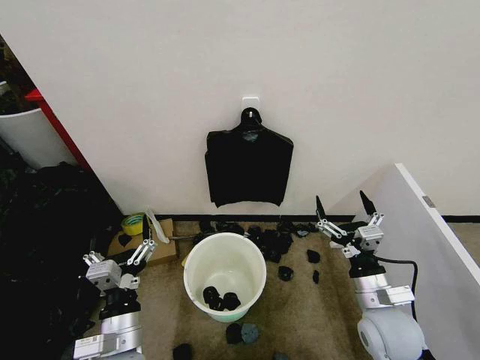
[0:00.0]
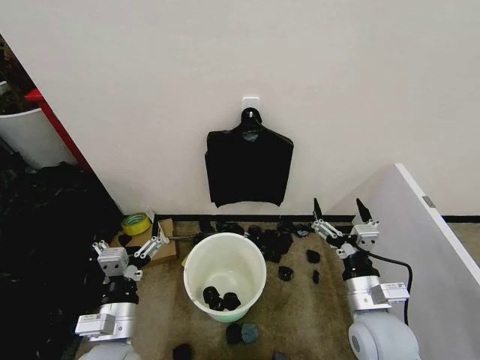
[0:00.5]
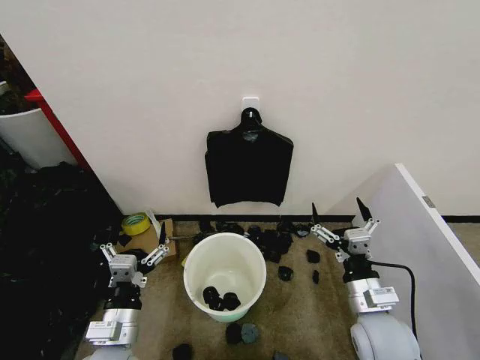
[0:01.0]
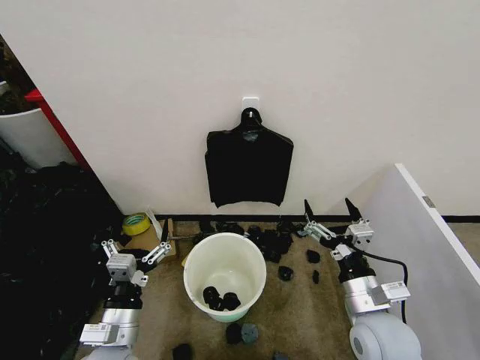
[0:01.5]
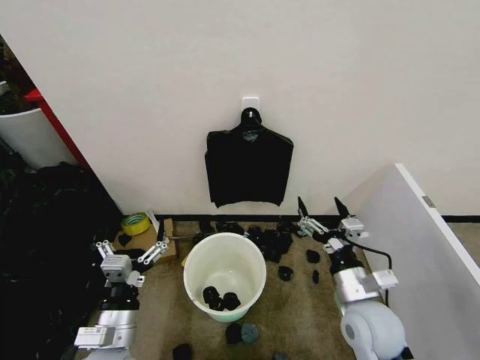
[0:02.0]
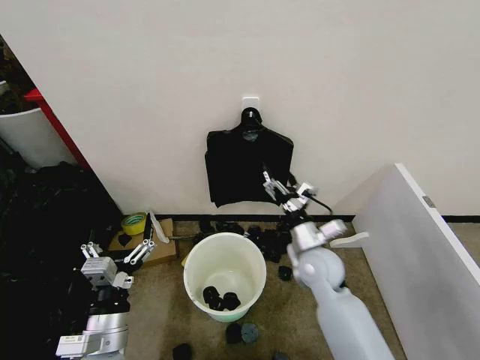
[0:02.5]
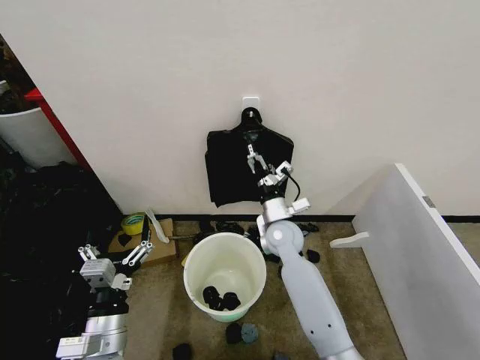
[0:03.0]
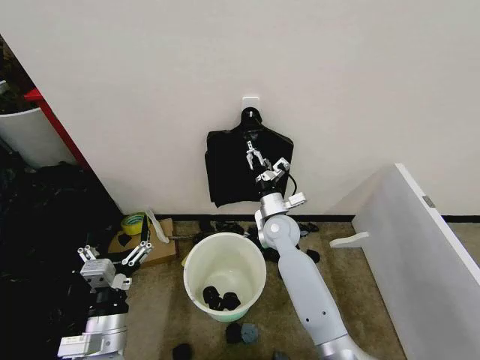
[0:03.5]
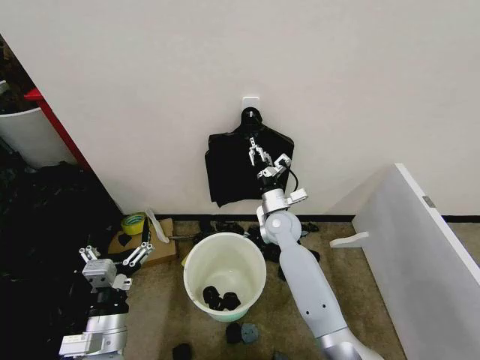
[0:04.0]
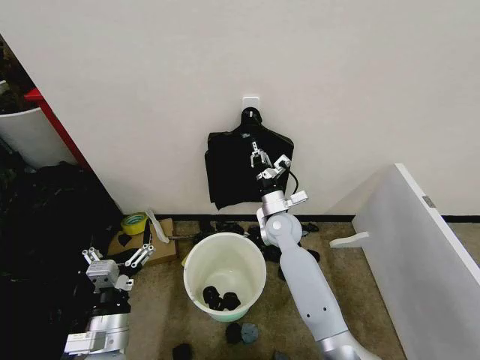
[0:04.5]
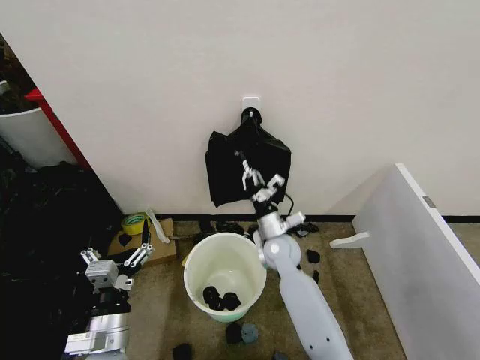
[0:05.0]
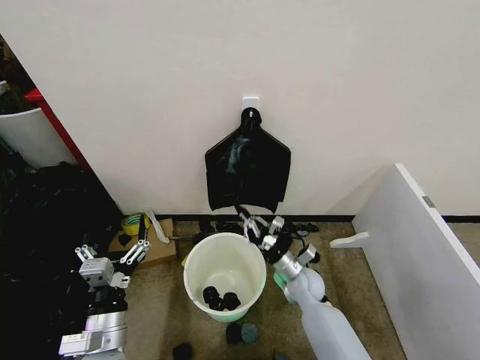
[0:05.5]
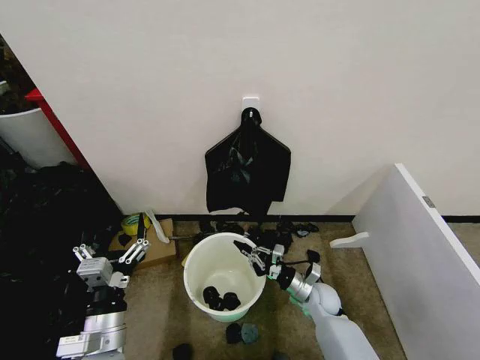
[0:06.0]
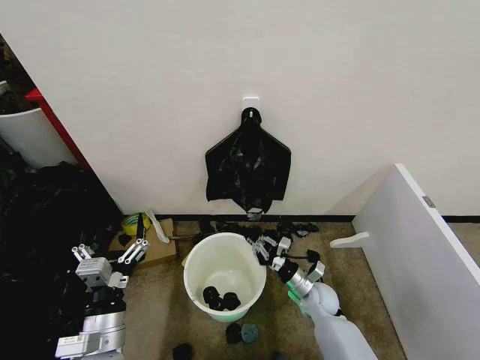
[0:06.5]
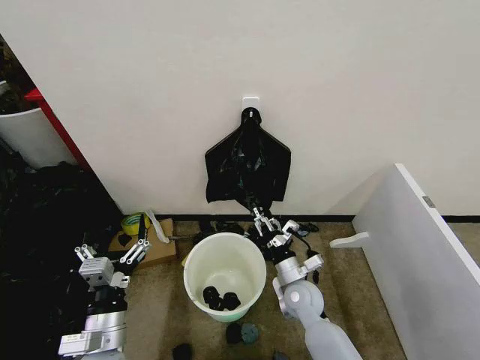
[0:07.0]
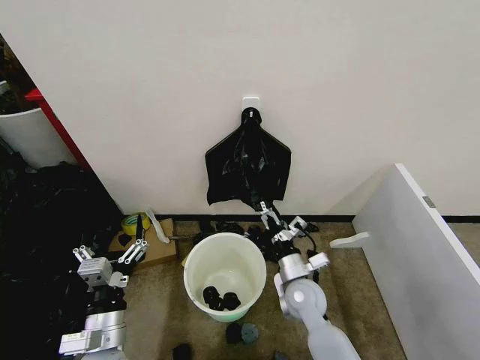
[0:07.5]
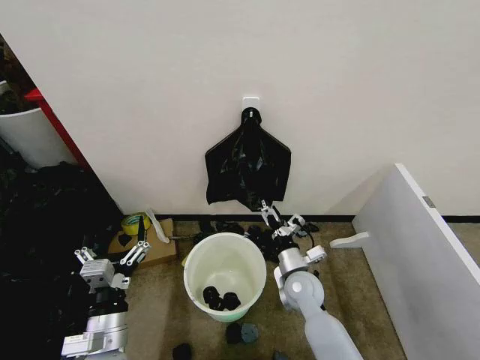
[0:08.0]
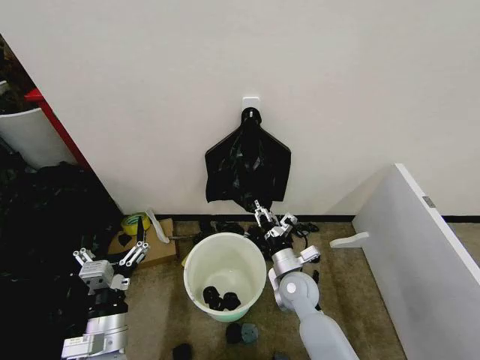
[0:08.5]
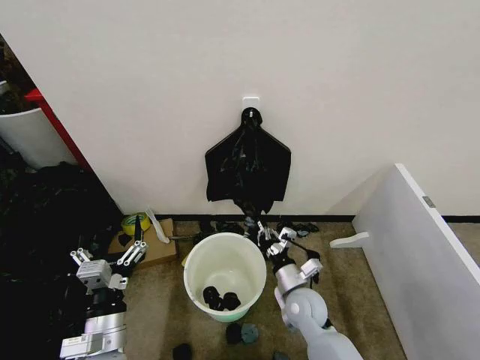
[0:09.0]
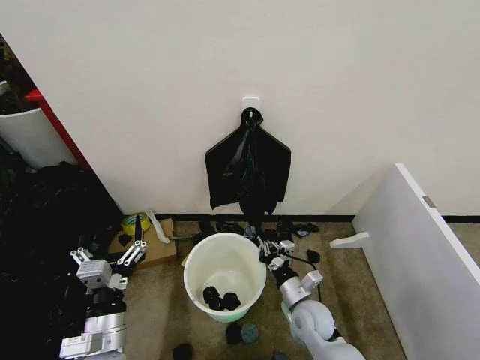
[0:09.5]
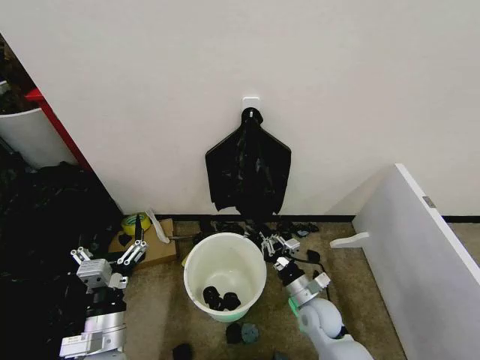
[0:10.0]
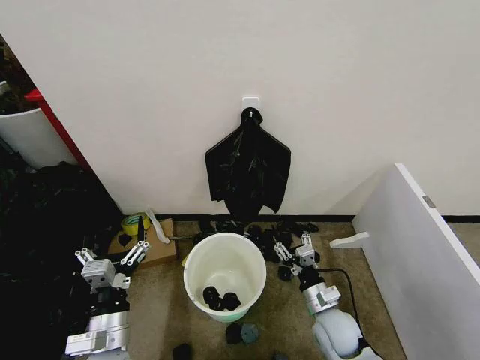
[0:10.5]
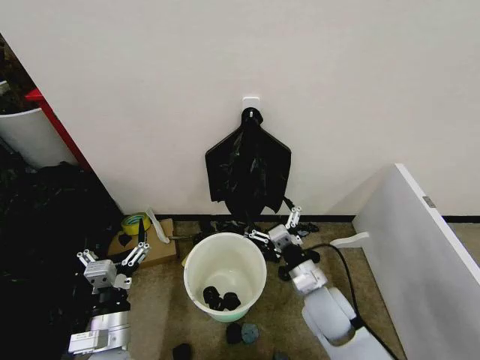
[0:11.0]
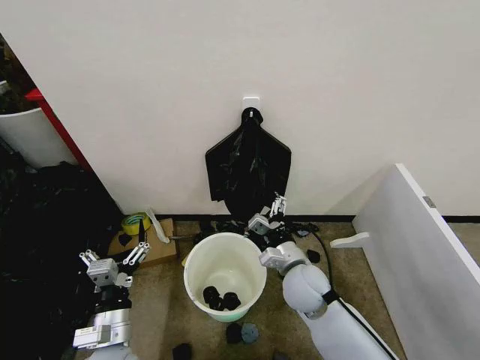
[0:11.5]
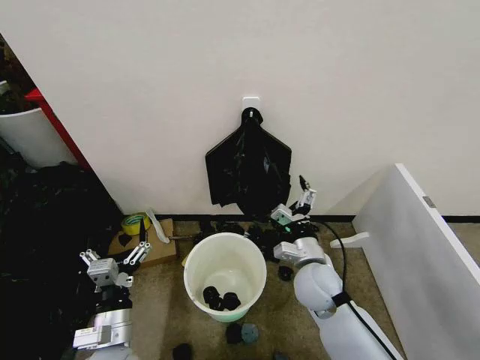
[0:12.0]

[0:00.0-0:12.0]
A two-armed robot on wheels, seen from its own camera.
Task of the whole recording: Place the garbage bag over the trash bin.
0:02.0 to 0:04.0: The right gripper goes about 30 cm forward and to the left, and closes its fingers.
0:04.0 to 0:06.0: The right gripper moves downward, backward and to the right, roughly 25 cm, and closes up.
0:06.0 to 0:08.0: The right gripper heads upward and to the left, covering about 10 cm, and opens up.
0:08.0 to 0:10.0: The right gripper changes place by roughly 10 cm, and closes up.
0:10.0 to 0:12.0: The right gripper shifts roughly 15 cm upward, and opens up.

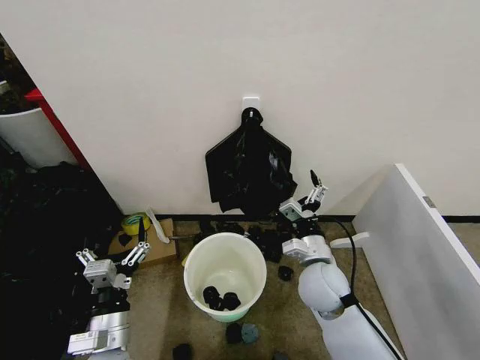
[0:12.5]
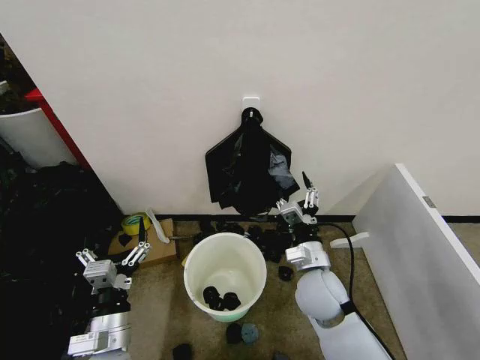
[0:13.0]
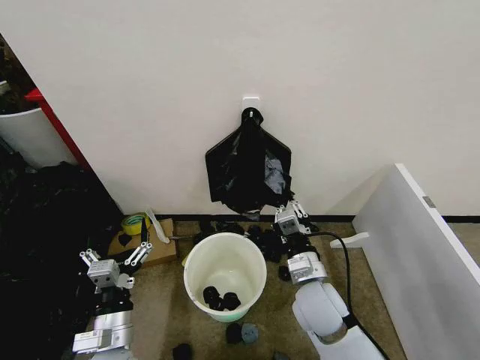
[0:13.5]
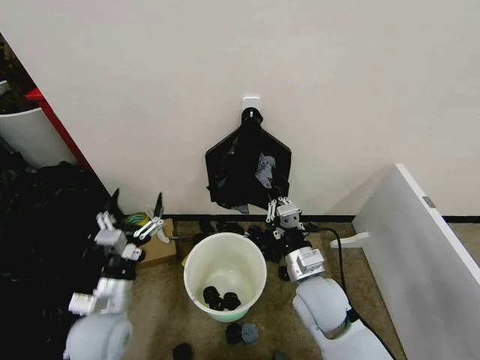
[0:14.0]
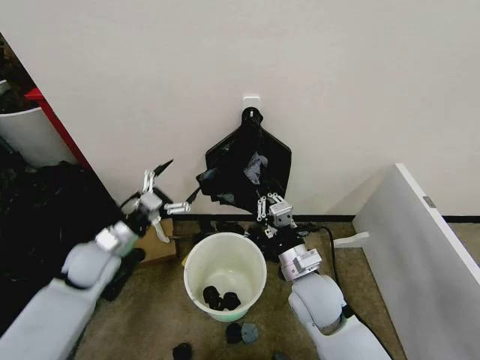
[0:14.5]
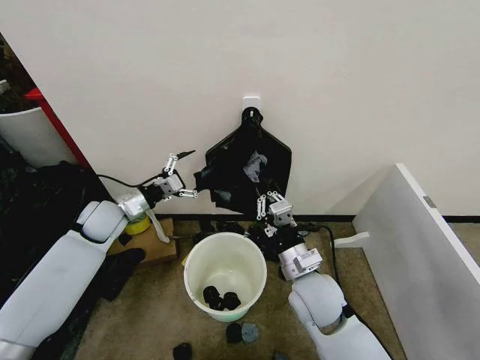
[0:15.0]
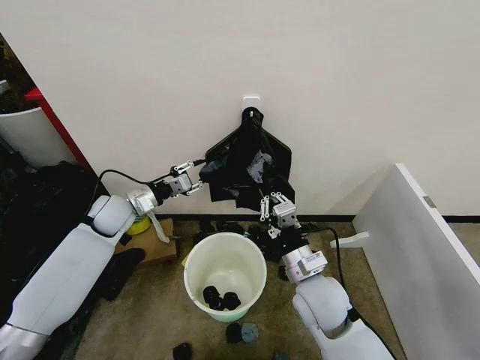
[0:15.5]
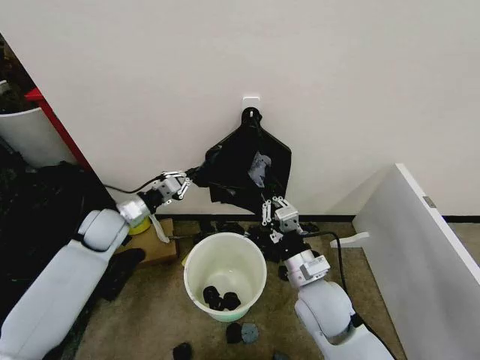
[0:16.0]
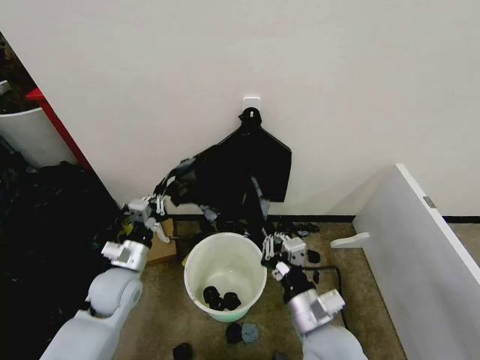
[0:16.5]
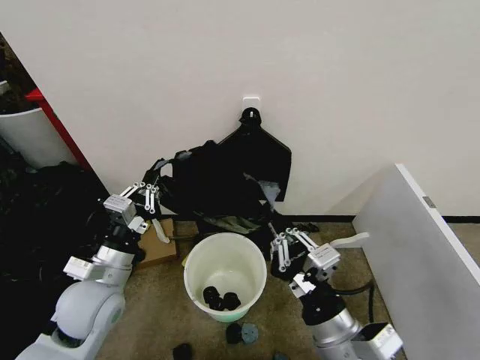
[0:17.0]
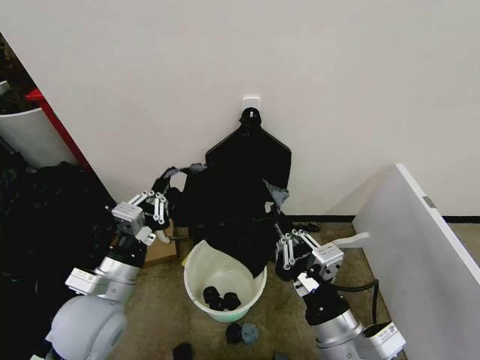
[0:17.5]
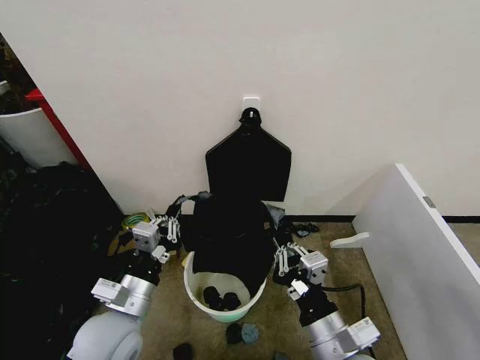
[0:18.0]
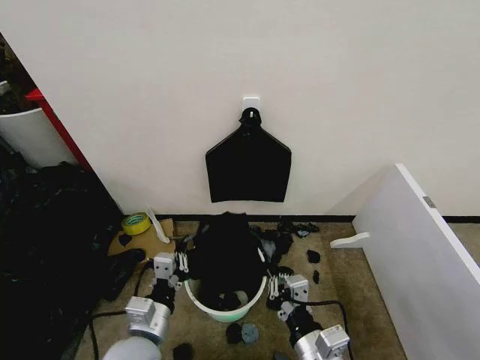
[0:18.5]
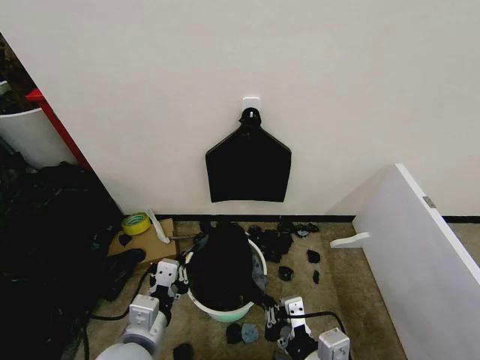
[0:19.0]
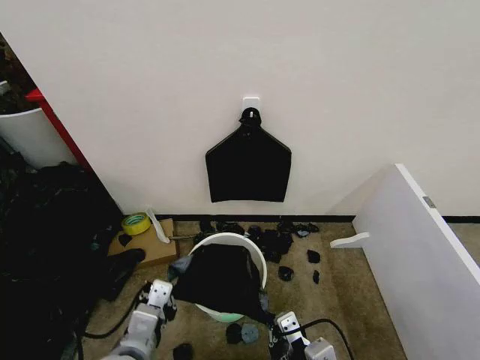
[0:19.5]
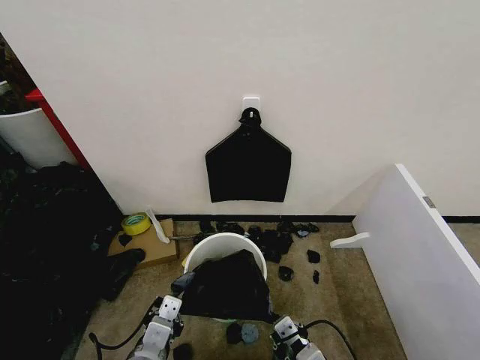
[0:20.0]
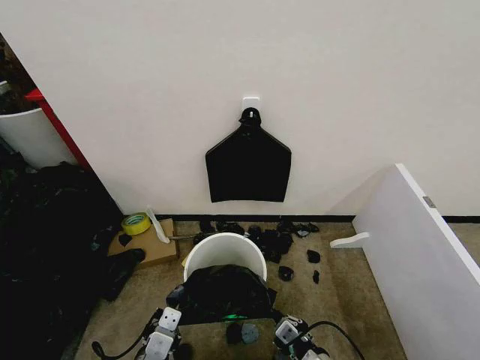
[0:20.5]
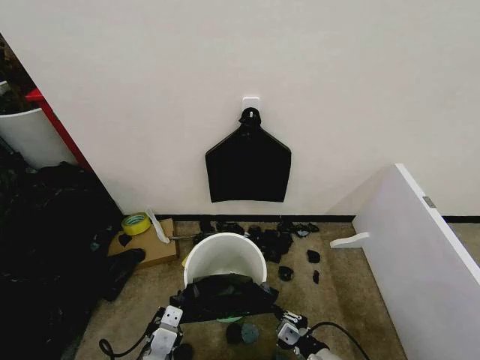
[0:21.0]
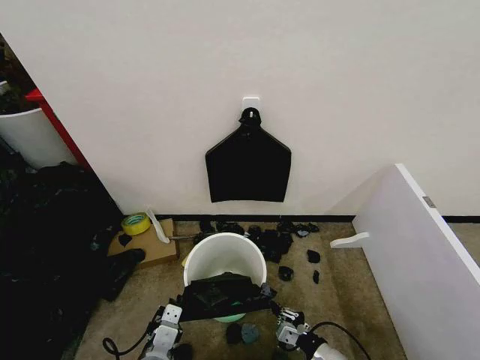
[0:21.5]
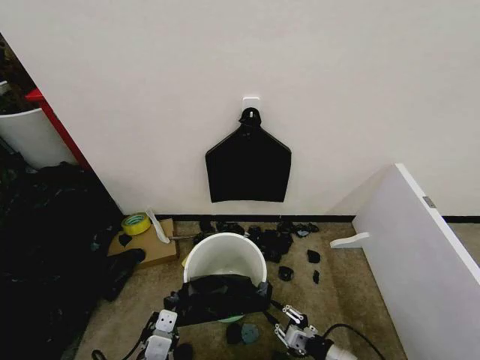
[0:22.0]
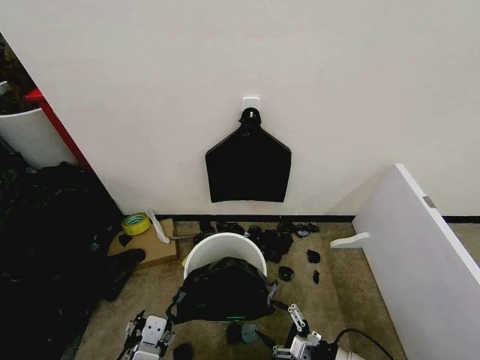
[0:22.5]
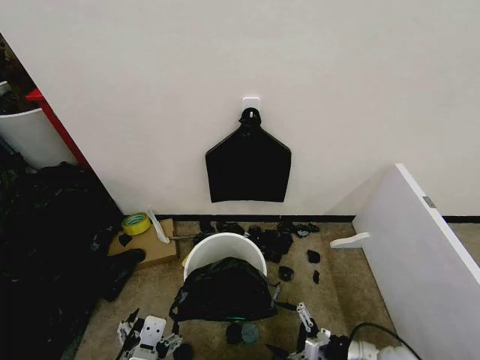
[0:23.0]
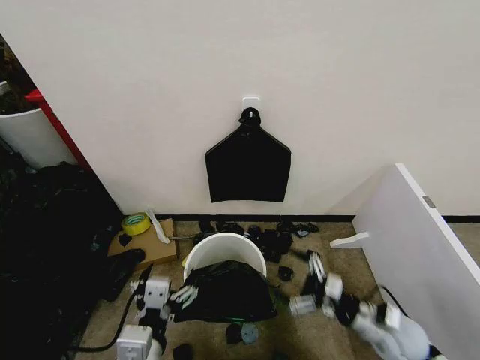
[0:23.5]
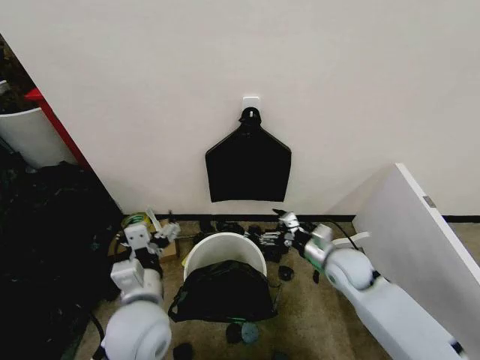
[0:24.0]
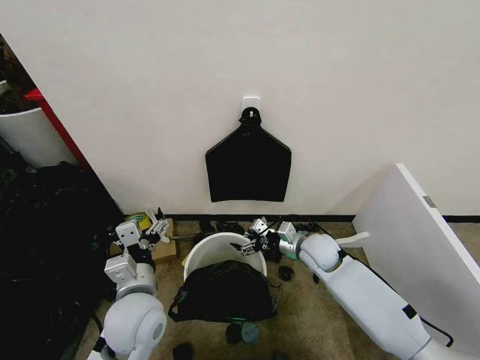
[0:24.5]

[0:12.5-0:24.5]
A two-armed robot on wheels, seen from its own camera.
Task of the whole recording: Place the garbage bag over the trash bin.
0:12.5 to 0:14.5: The left gripper heads forward and to the left, covering roughly 20 cm. The right gripper closes its fingers.
0:14.5 to 0:16.5: The right gripper moves backward, roughly 10 cm; the left gripper shifts roughly 5 cm downward, reaches approximately 10 cm forward, then returns, and closes its fingers.
0:16.5 to 0:18.5: The left gripper travels backward and to the right by some 15 cm. Meanwhile the right gripper travels backward by about 5 cm, and travels upward and back again, approximately 5 cm each way.
0:18.5 to 0:20.5: The right gripper moves downward, roughly 5 cm. Meanwhile the left gripper goes about 5 cm backward.
0:20.5 to 0:22.5: The left gripper opens. Meanwhile the right gripper heads to the right and downward, covering approximately 10 cm, and opens.
0:22.5 to 0:24.5: The left gripper moves forward, roughly 15 cm. The right gripper moves forward, approximately 25 cm.

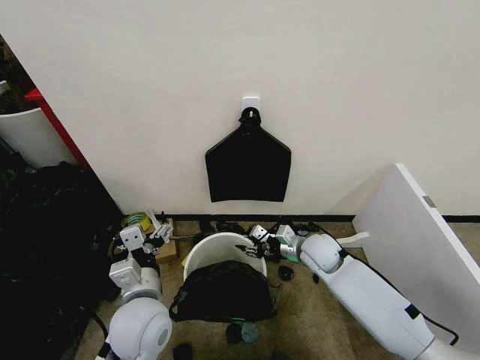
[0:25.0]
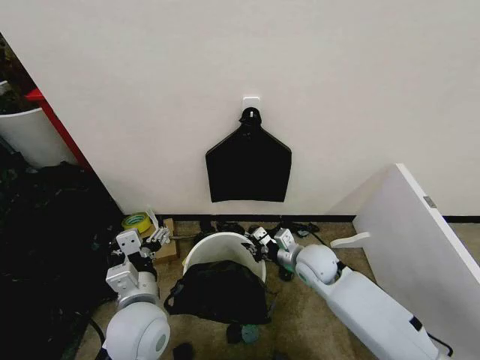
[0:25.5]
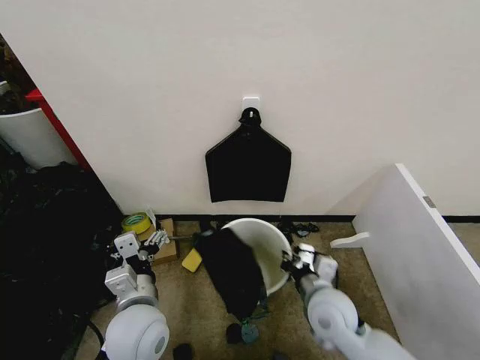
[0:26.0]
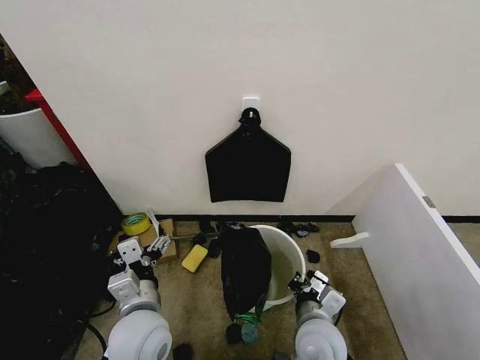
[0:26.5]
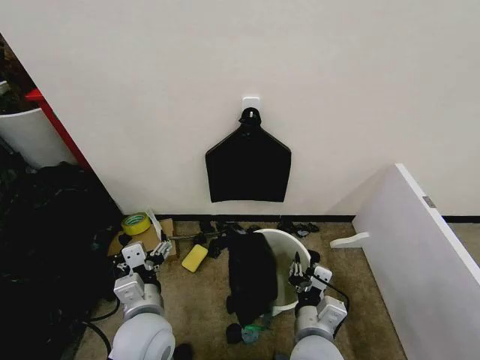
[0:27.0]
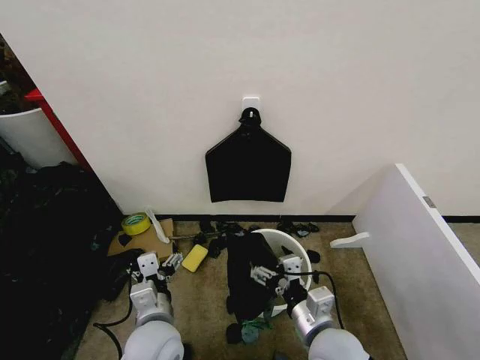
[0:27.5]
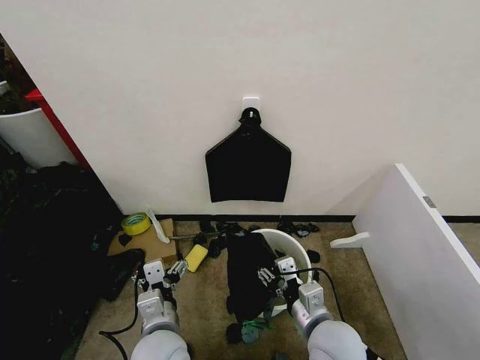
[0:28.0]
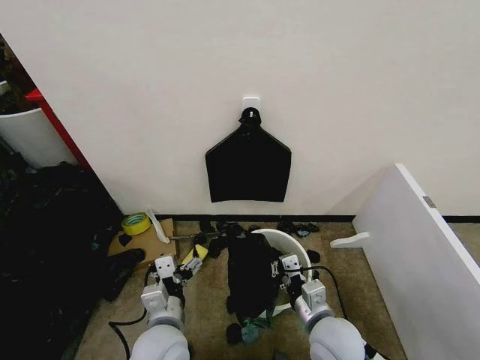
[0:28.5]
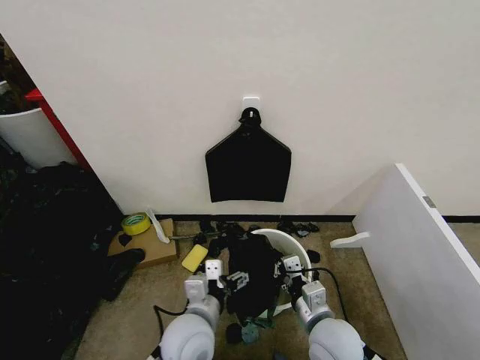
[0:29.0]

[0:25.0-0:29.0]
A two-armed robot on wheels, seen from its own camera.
Task of the whole recording: Place the garbage bag over the trash bin.
0:25.0 to 0:27.0: The right gripper is displaced backward by some 25 cm, and closes, then opens again.
0:27.0 to 0:29.0: The right gripper shifts by about 5 cm, and closes up. Meanwhile the left gripper goes some 5 cm to the right.
